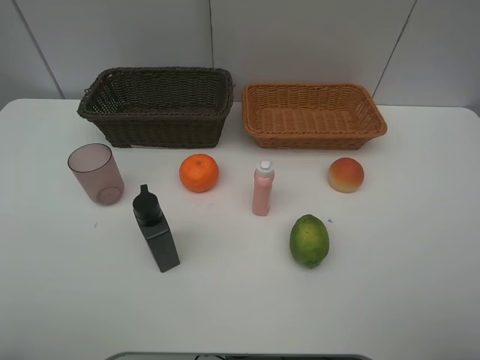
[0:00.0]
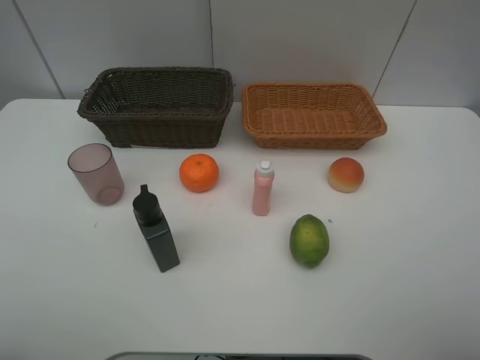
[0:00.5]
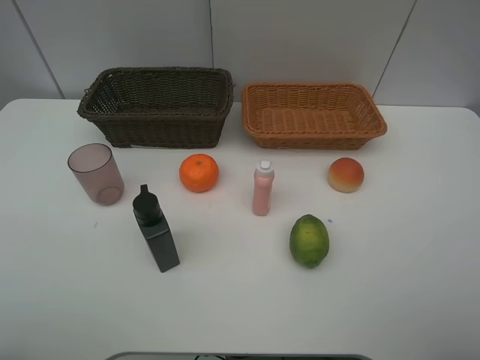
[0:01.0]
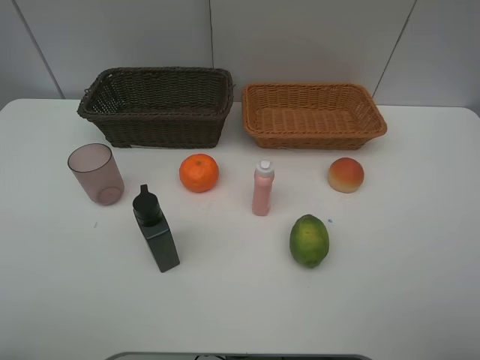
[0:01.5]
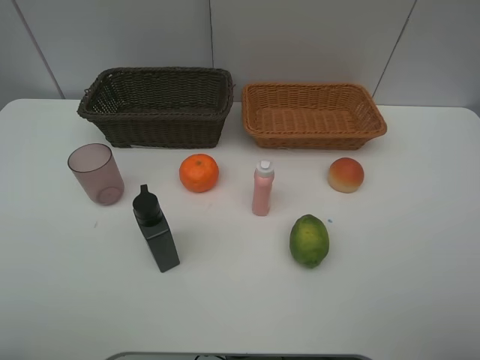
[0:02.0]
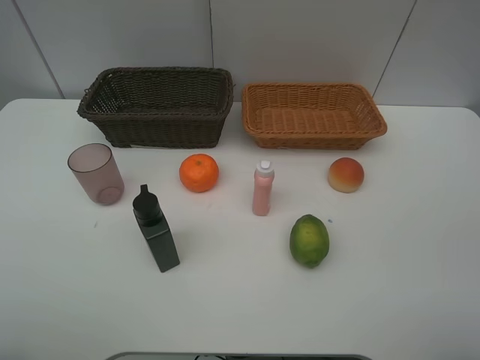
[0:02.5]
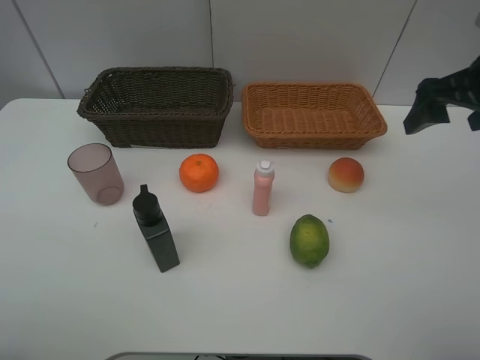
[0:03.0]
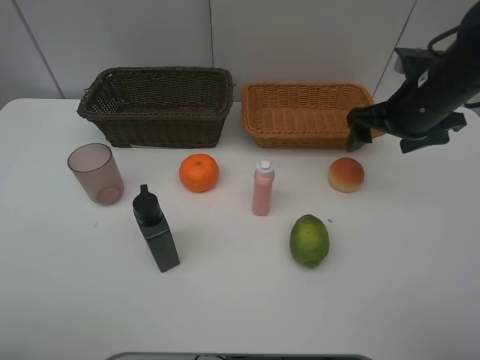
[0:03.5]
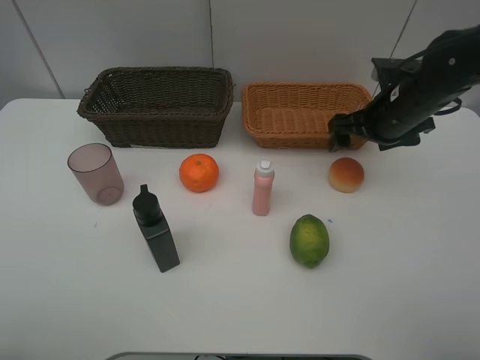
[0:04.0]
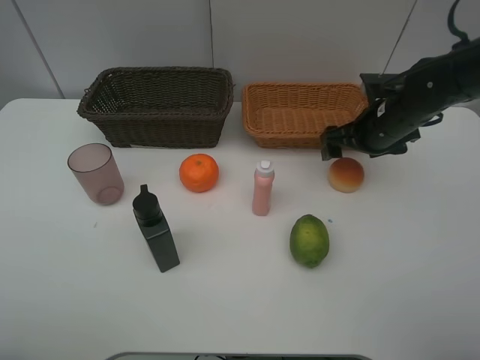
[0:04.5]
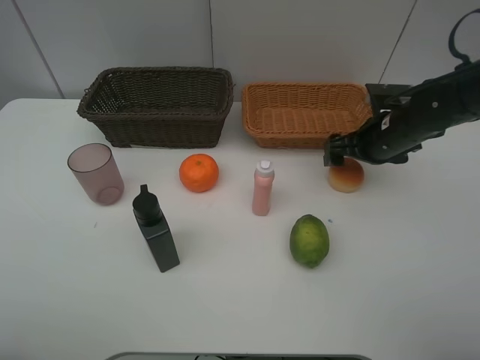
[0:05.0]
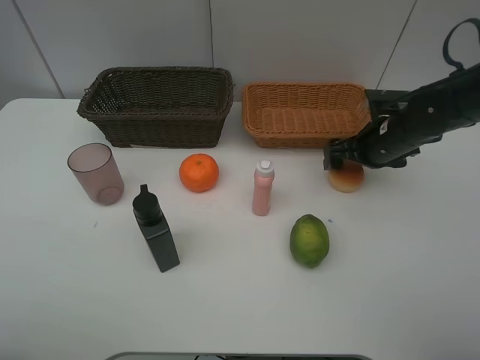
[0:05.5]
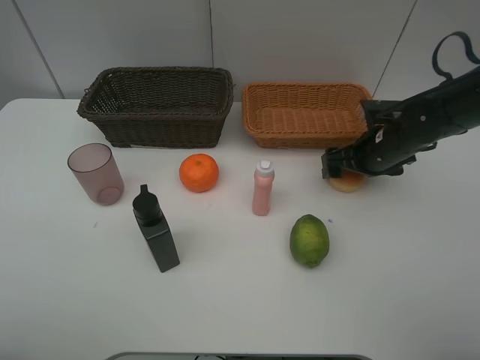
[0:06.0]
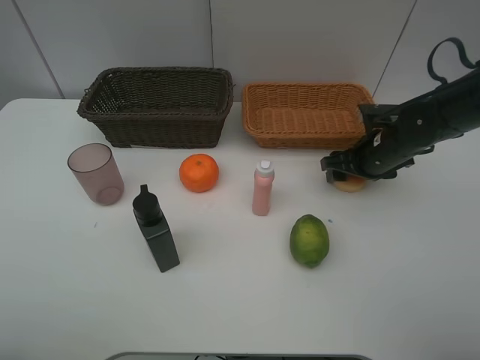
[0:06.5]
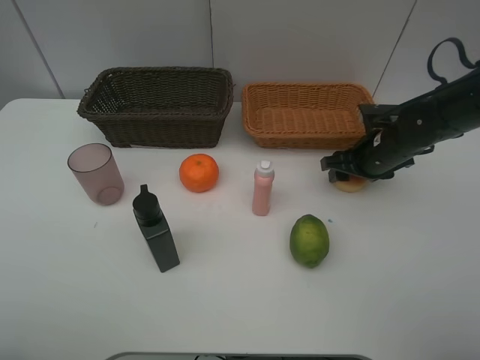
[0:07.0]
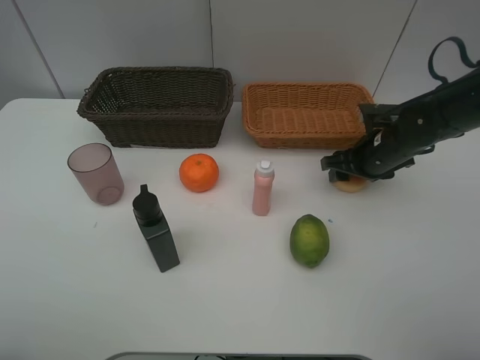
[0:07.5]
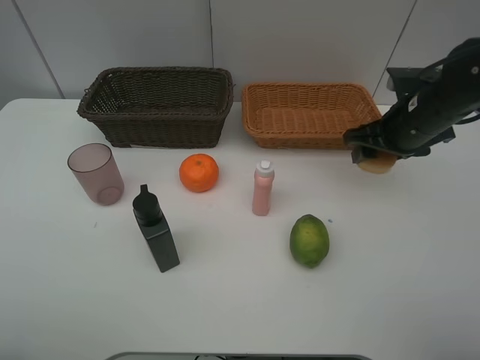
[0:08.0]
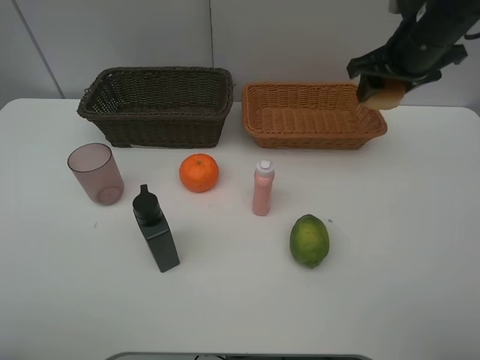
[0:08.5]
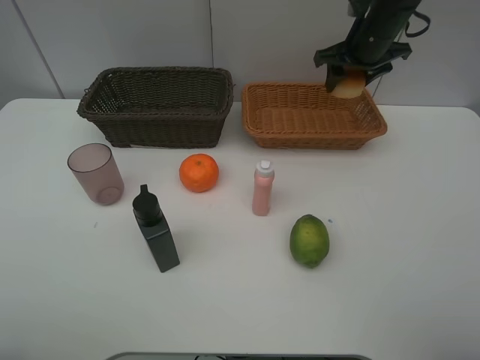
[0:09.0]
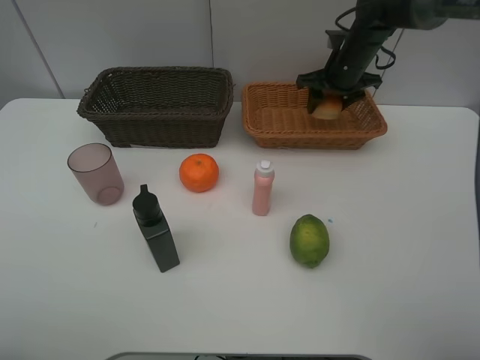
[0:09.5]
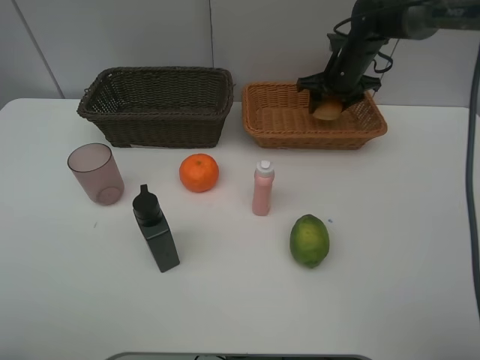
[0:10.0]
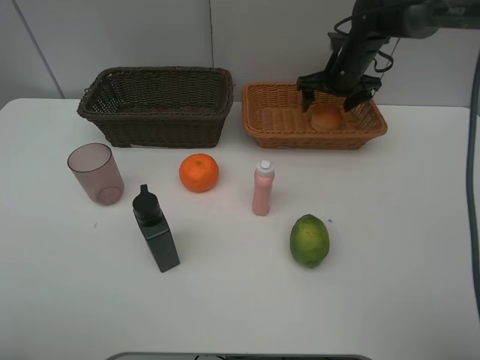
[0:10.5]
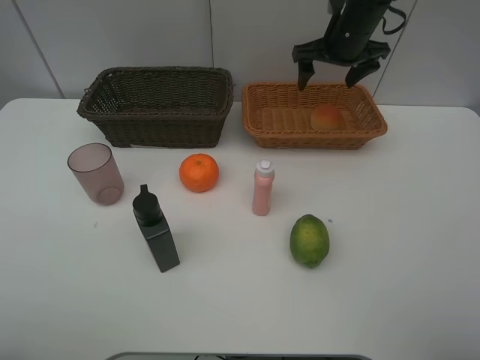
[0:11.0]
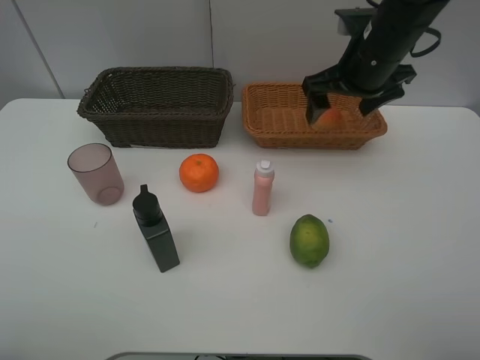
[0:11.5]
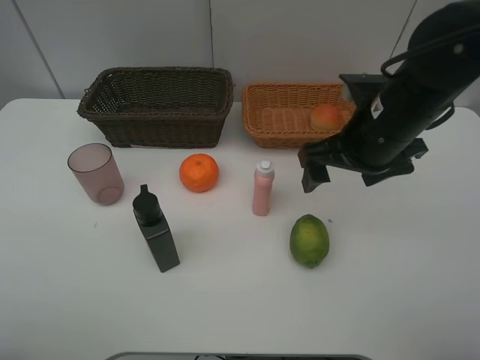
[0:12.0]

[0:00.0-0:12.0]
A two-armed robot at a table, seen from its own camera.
Task of the whole recording: place multiple objects separately in different baskets.
2.0 to 4.0 s: The right gripper travels forward by about 30 cm.
4.0 to 6.0 s: The right gripper moves downward, about 5 cm.
6.0 to 8.0 s: The right gripper moves upward, some 10 cm, and closes its fingers.
8.0 to 10.0 s: The right gripper moves forward, roughly 20 cm.
10.0 to 12.0 s: The right gripper heads backward, covering roughly 25 cm, and opens up.

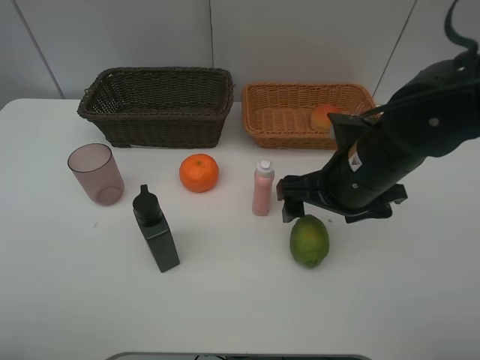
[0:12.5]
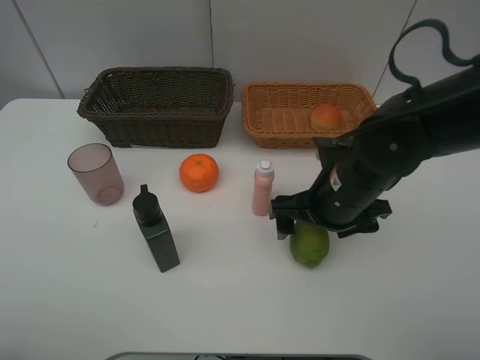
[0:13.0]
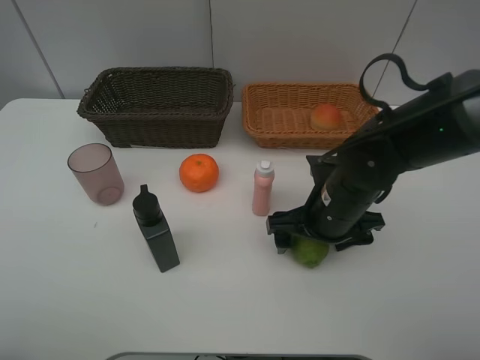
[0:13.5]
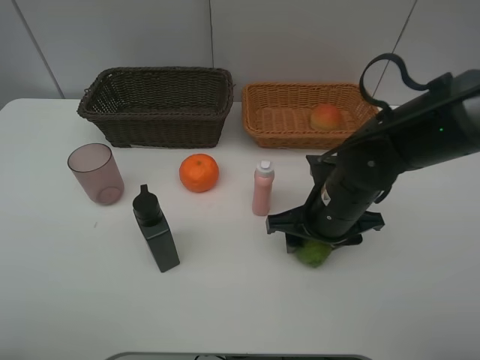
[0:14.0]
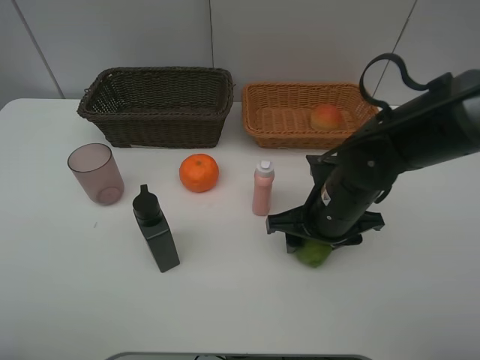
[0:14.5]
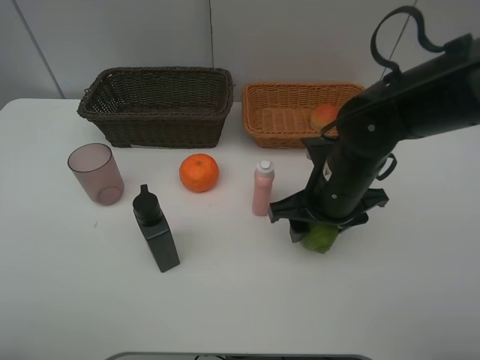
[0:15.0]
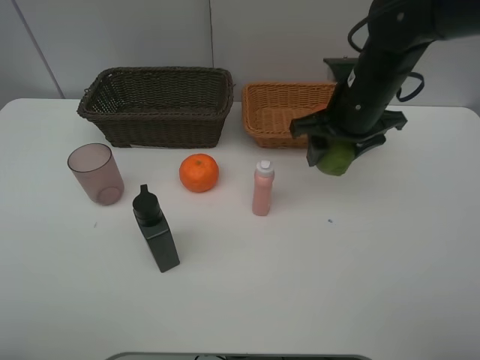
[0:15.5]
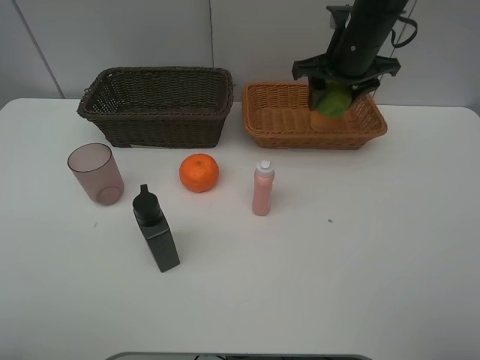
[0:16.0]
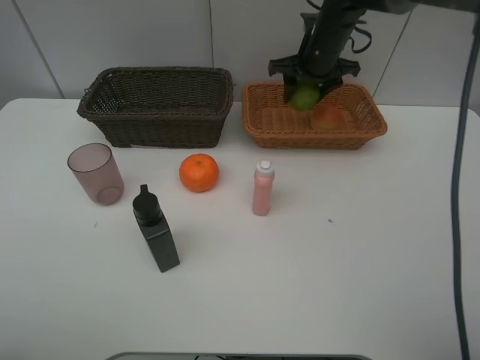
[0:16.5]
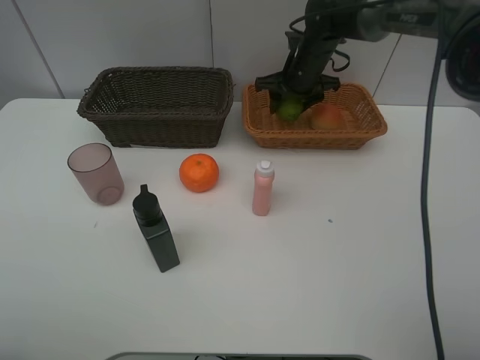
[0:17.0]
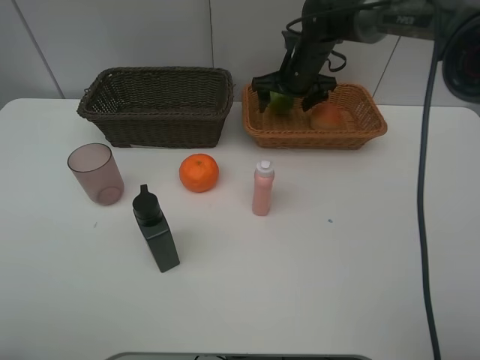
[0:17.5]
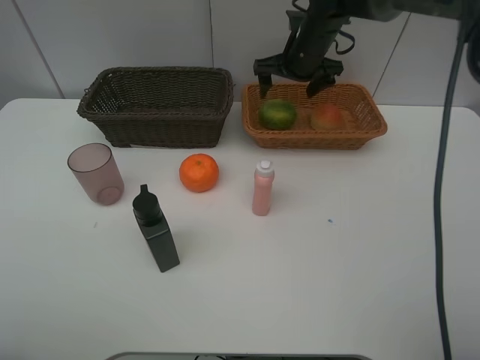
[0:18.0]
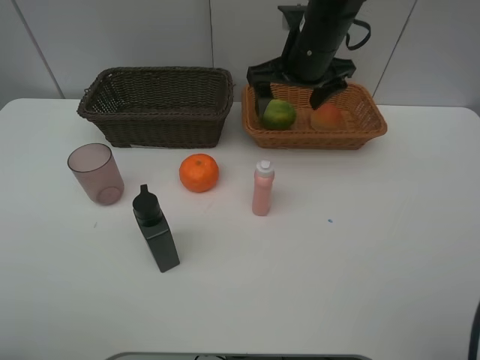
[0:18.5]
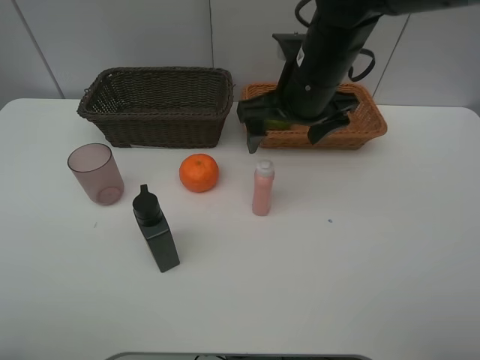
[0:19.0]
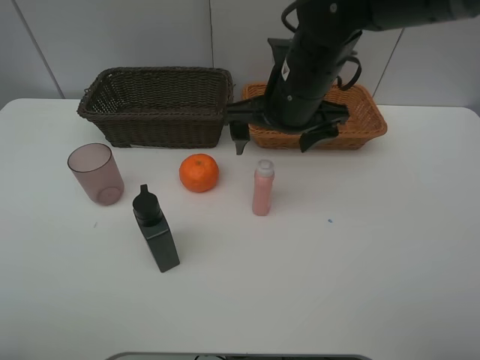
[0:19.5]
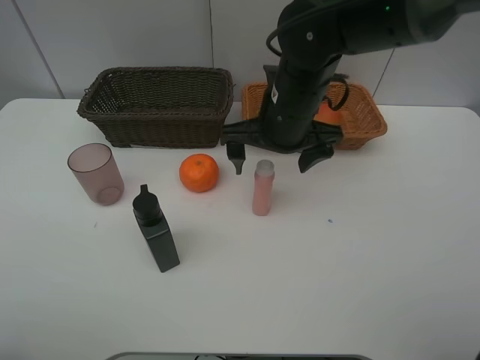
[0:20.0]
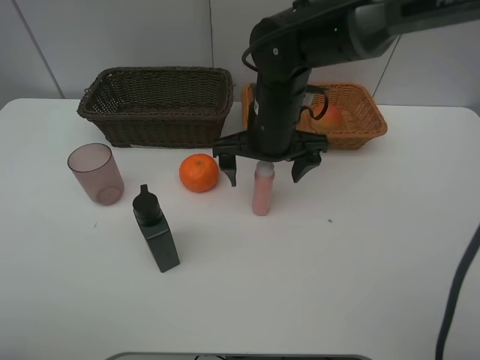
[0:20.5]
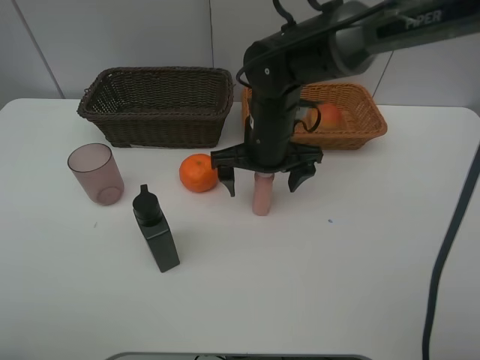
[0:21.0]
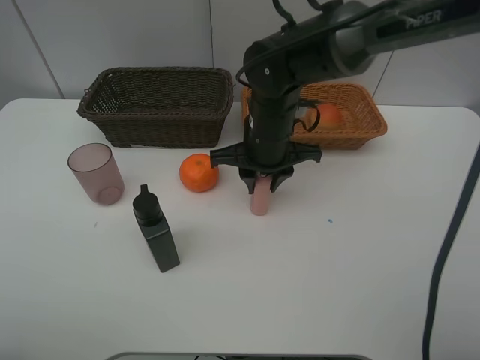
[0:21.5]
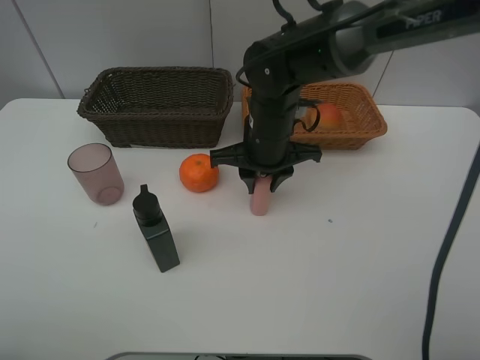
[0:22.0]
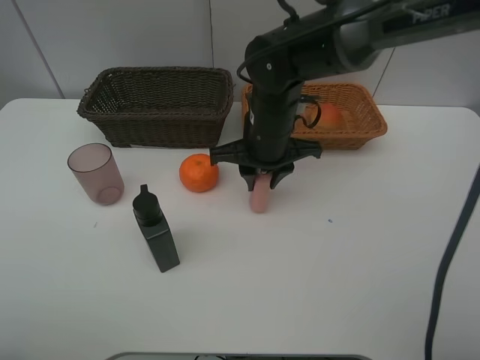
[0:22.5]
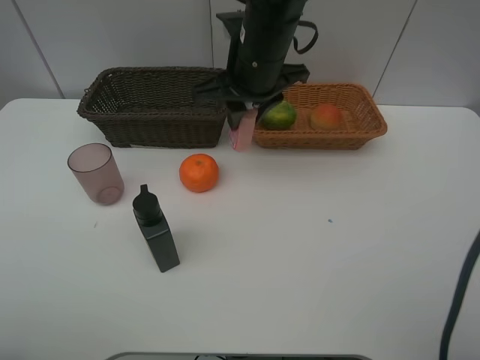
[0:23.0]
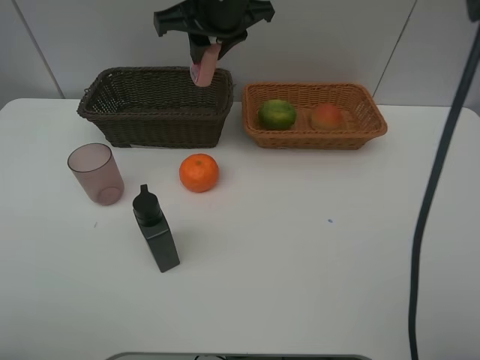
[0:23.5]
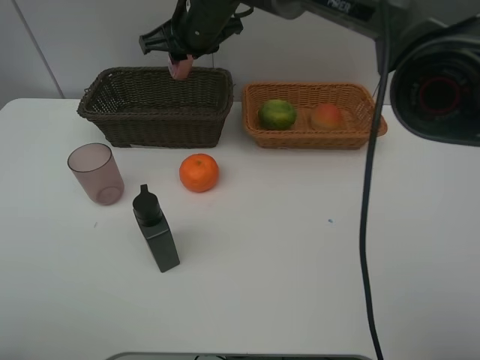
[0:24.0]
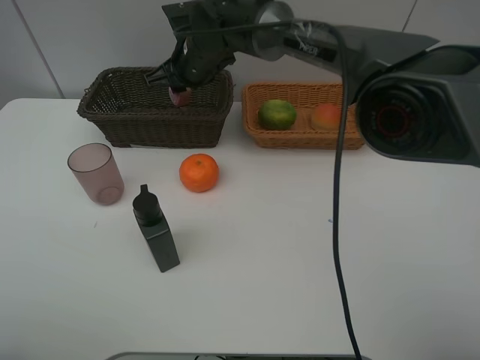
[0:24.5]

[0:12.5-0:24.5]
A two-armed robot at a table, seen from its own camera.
Task of the whole recording: place multiple objects separately in different baskets.
12.5 to 14.5 s: The right gripper goes about 5 cm downward, and closes up.
14.5 to 16.5 s: The right gripper moves forward, some 25 cm.
16.5 to 18.5 s: The right gripper shifts roughly 10 cm backward, and opens its fingers.
18.5 to 20.5 s: The right gripper travels downward, backward and to the left by approximately 10 cm.
20.5 to 22.5 s: The right gripper closes its fingers.
22.5 to 24.5 s: The right gripper moves forward and to the left, roughly 15 cm, and travels upward and back again, roughly 15 cm each way.

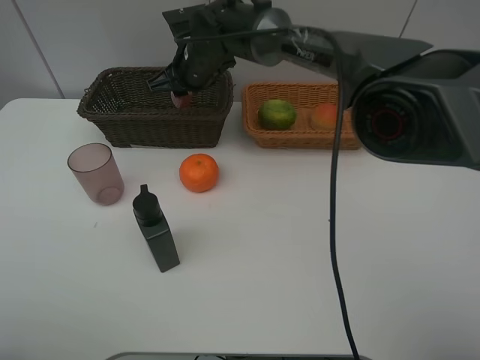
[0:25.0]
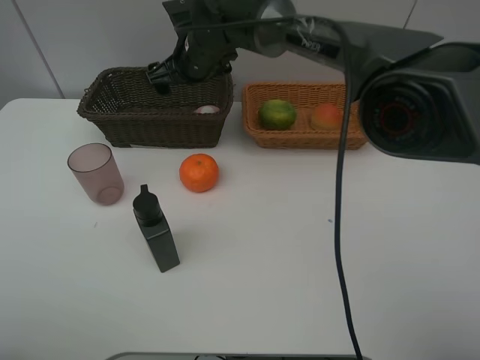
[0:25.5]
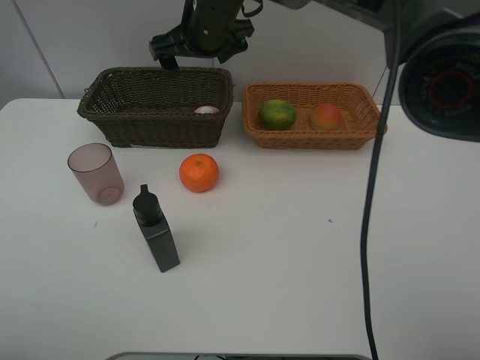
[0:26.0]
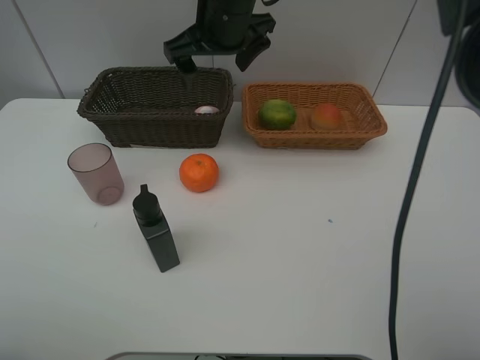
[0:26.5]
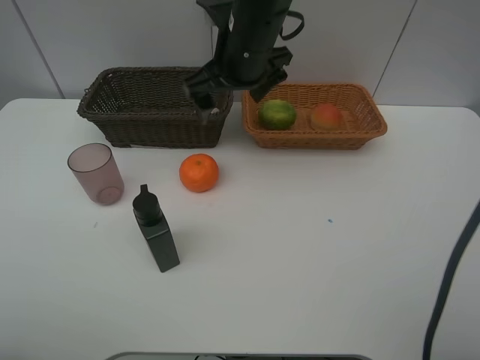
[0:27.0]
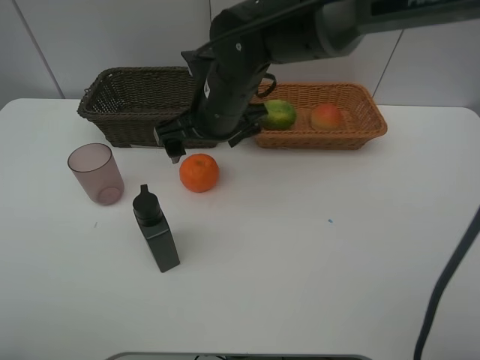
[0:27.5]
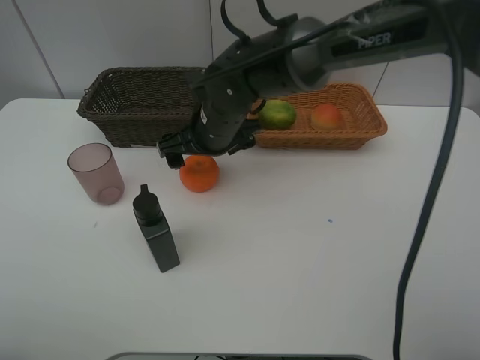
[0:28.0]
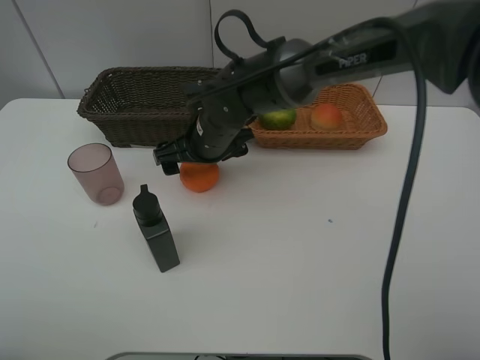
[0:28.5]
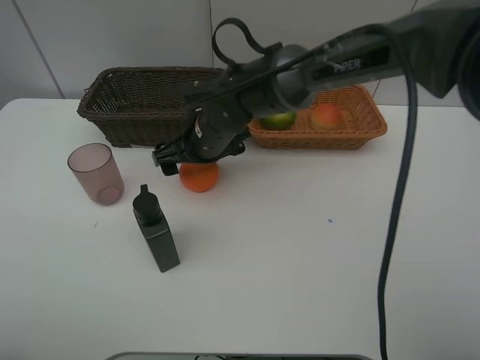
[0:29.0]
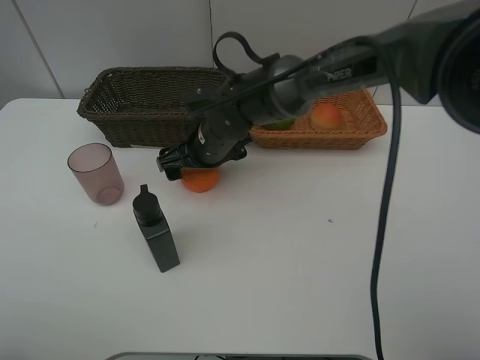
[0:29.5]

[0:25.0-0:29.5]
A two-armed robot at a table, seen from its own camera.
Task of the whole recording: place multiple objects separately in different baskets.
25.0 to 27.0 s: The right gripper moves backward, to the right and upward, about 15 cm, and opens its fingers.
27.0 to 29.5 s: The right gripper is displaced downward by approximately 15 cm.
